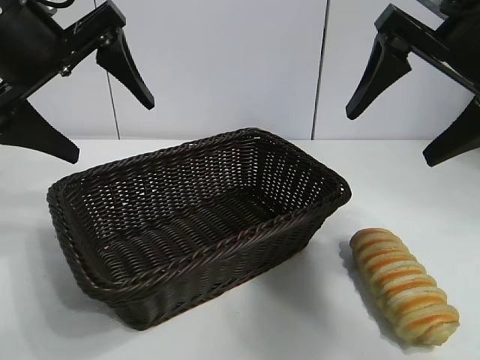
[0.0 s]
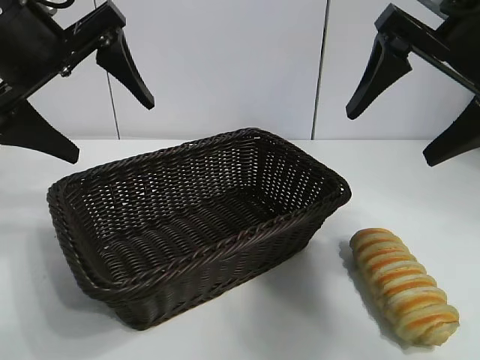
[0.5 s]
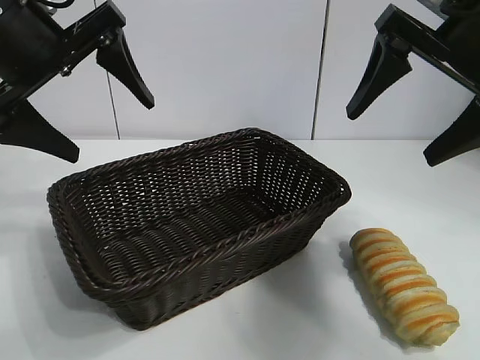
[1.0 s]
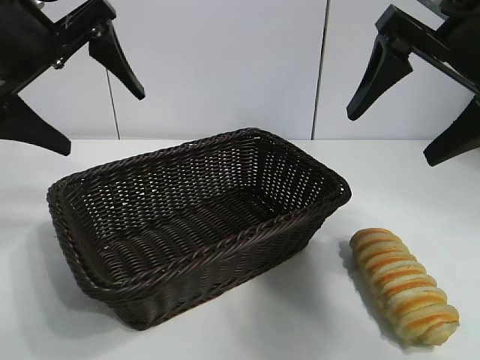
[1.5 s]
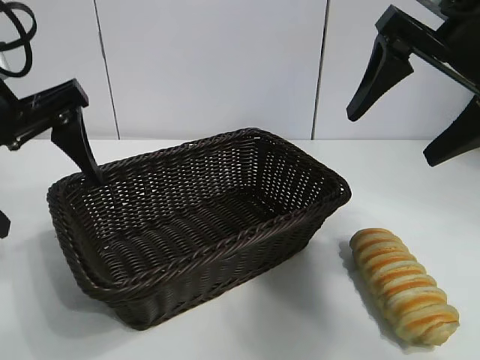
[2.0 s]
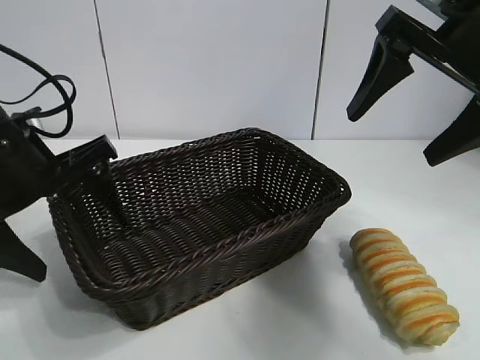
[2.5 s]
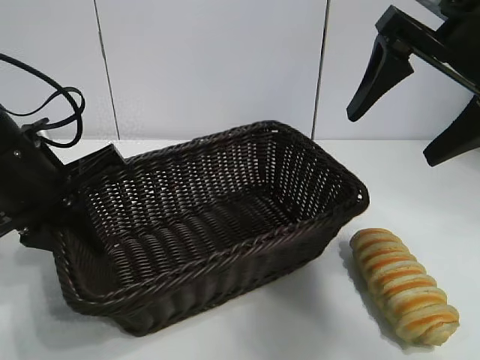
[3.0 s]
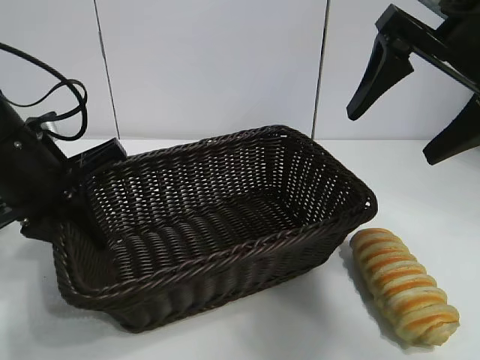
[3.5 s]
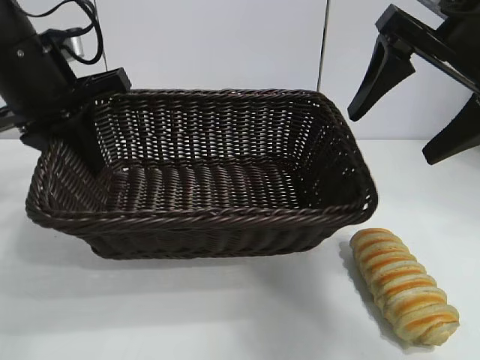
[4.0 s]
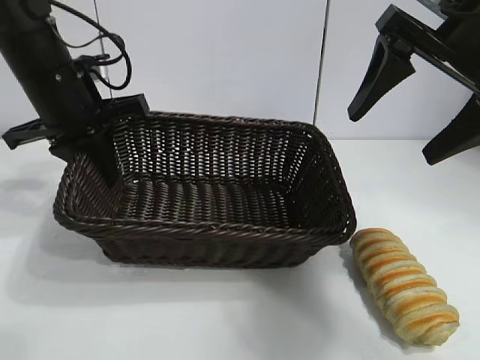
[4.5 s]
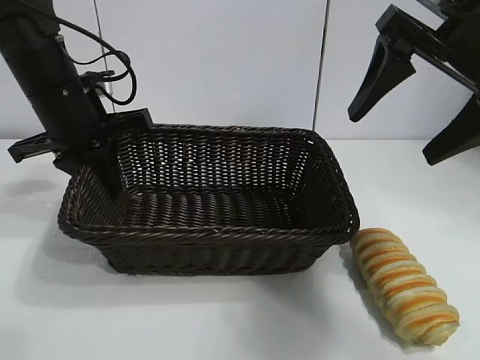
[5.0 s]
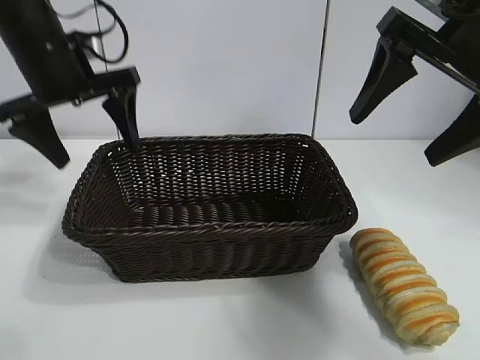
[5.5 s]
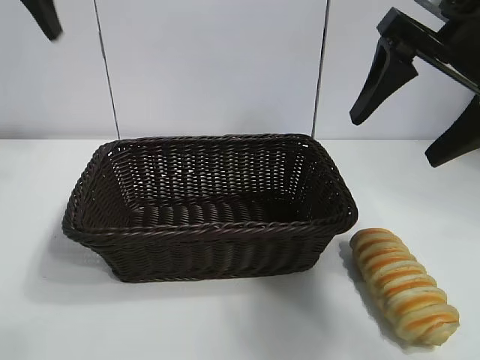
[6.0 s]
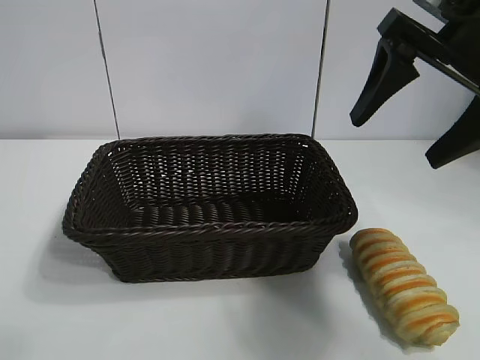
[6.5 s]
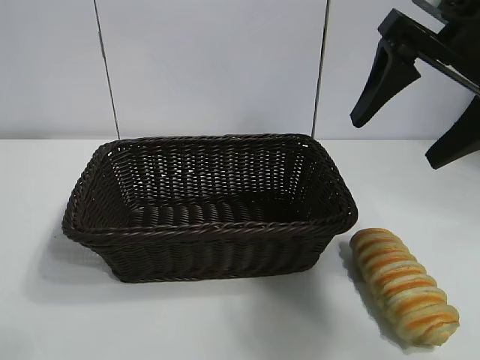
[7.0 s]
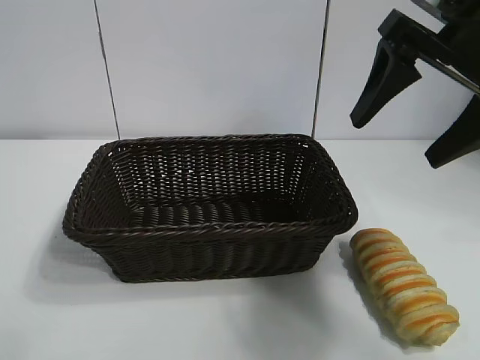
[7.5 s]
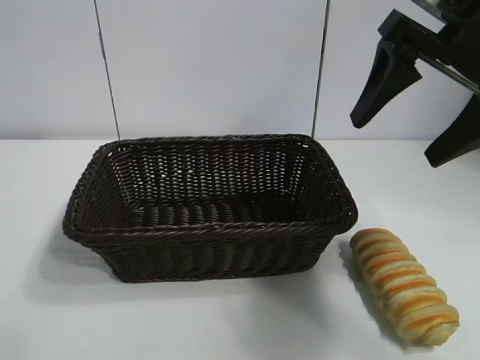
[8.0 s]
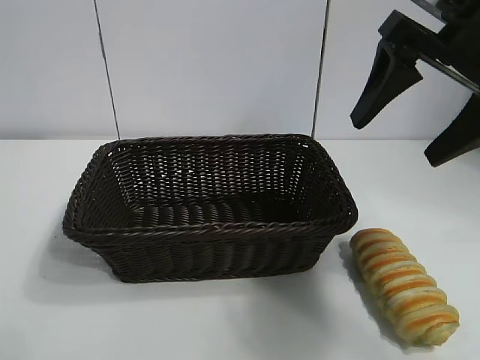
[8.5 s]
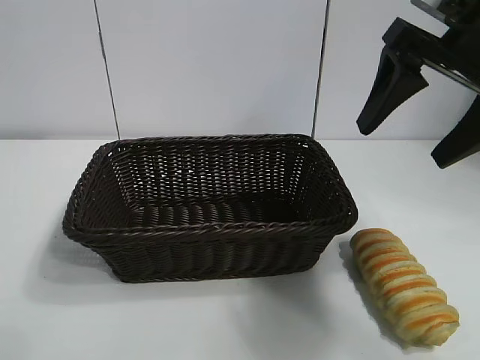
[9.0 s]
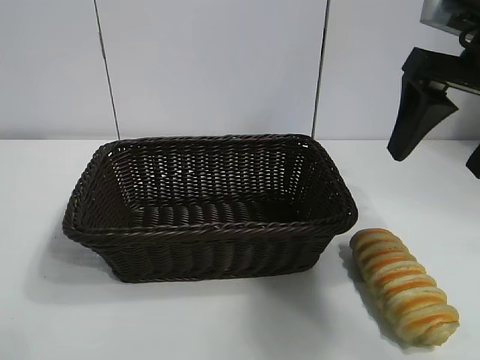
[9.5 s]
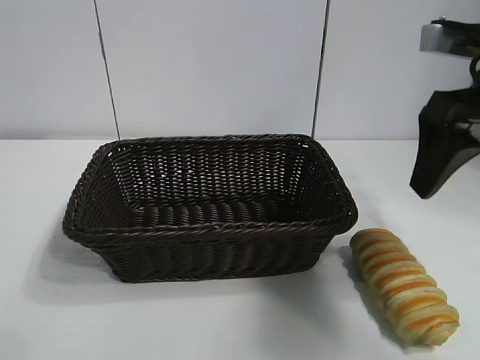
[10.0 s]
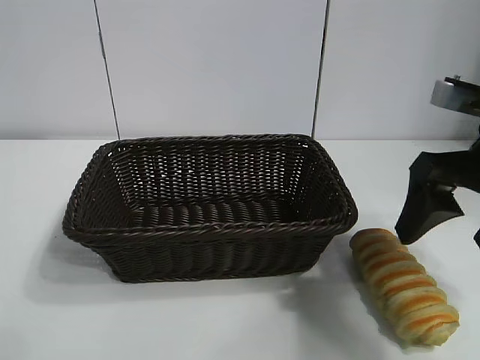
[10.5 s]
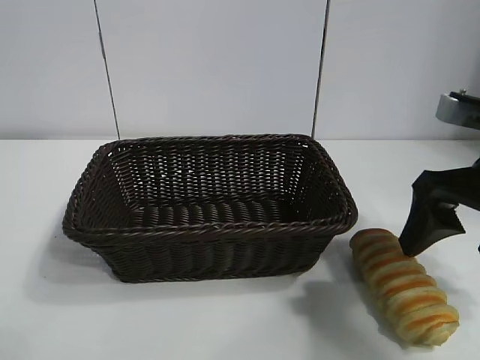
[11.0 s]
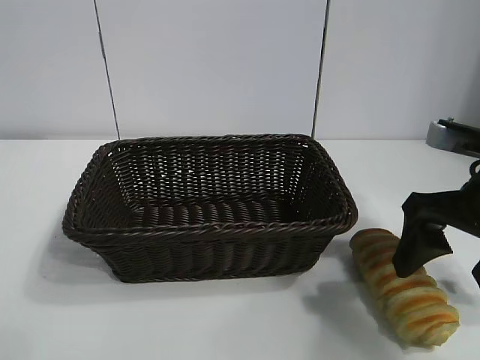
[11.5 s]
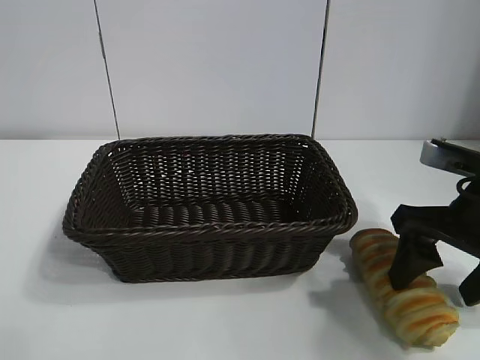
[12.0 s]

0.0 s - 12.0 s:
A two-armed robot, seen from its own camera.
Task of the whole recording: pick up the long bread and put it into the basket.
Step, 1.5 s - 3.0 s: Grasp the basket with the left gripper.
Step, 3.5 s - 5.0 s: Place the basket in the center of the table with the left gripper.

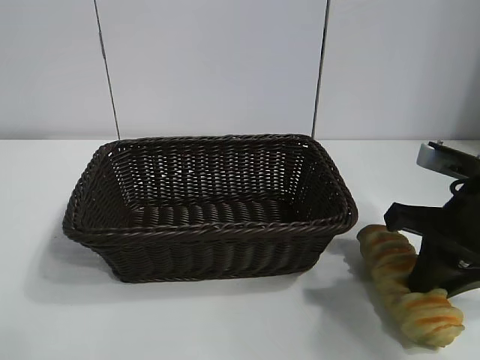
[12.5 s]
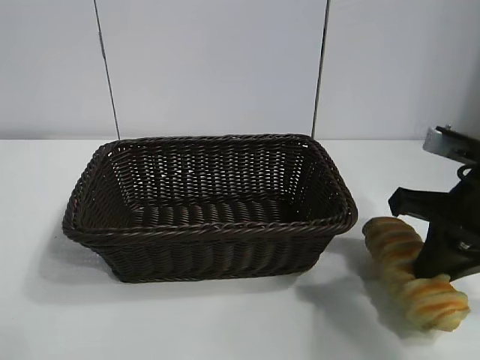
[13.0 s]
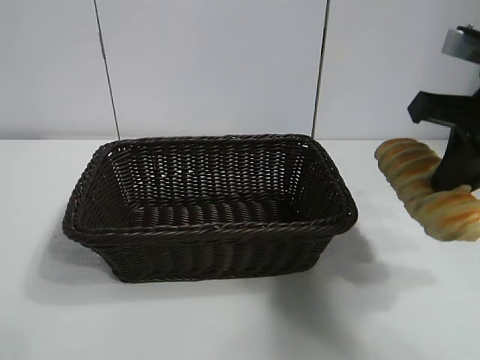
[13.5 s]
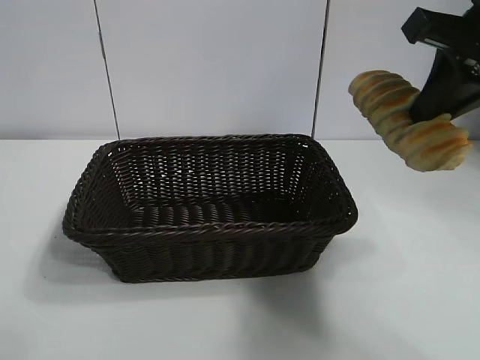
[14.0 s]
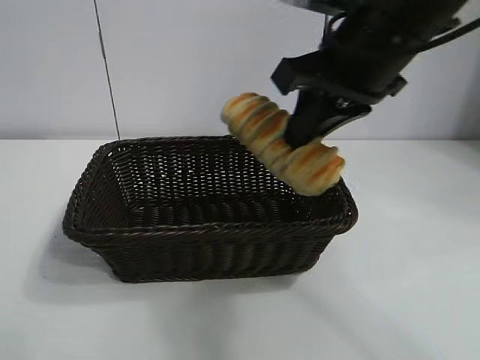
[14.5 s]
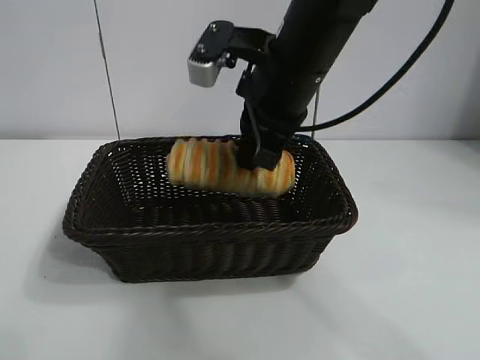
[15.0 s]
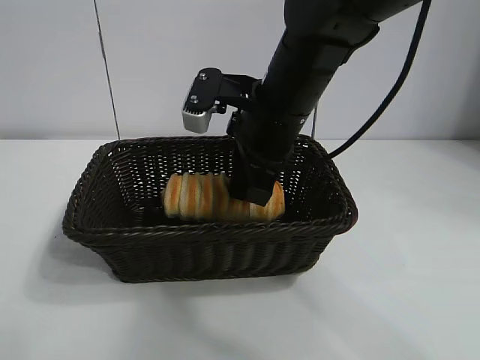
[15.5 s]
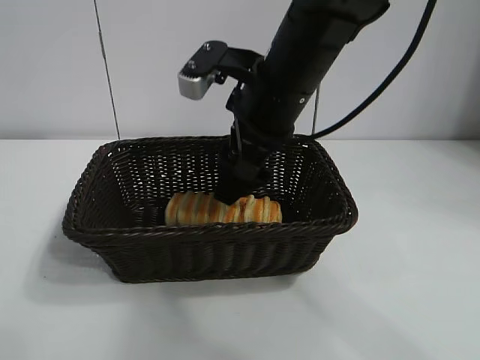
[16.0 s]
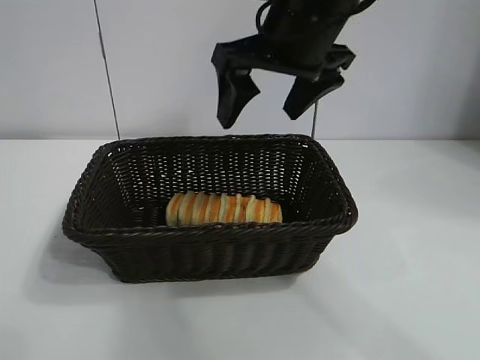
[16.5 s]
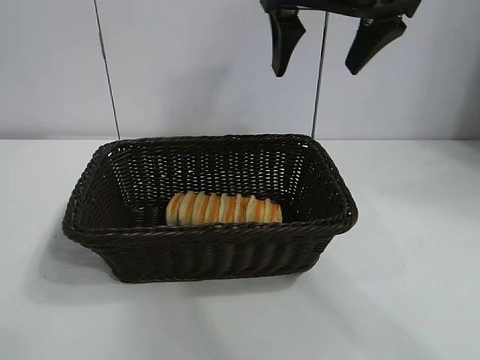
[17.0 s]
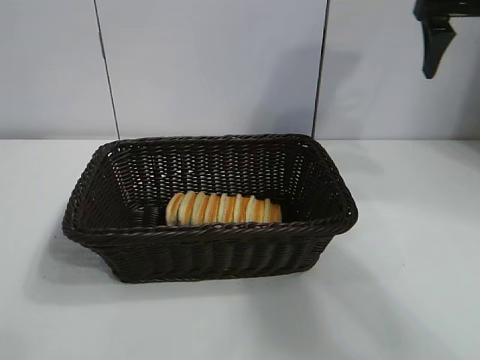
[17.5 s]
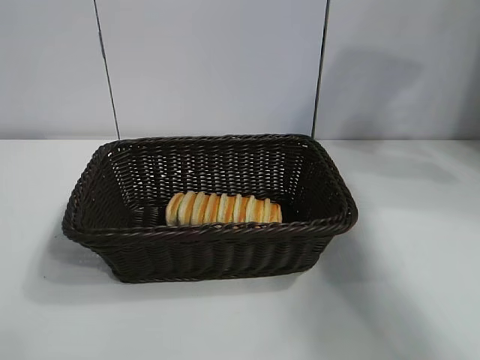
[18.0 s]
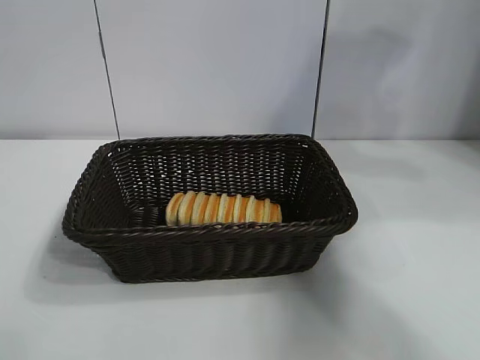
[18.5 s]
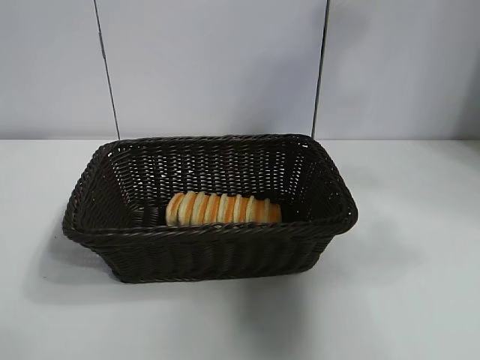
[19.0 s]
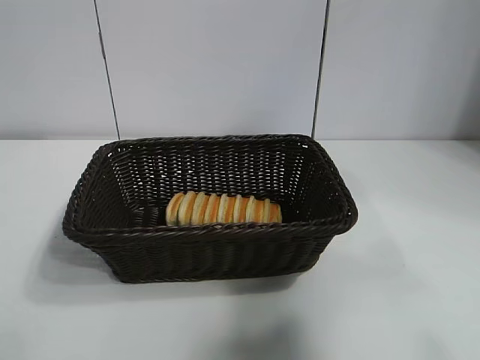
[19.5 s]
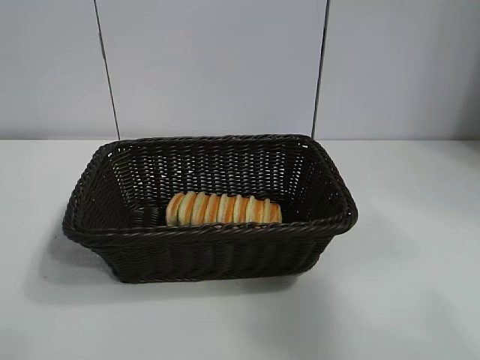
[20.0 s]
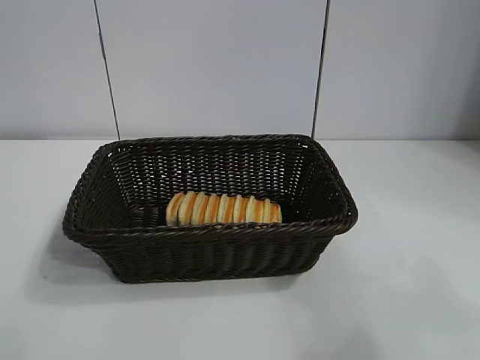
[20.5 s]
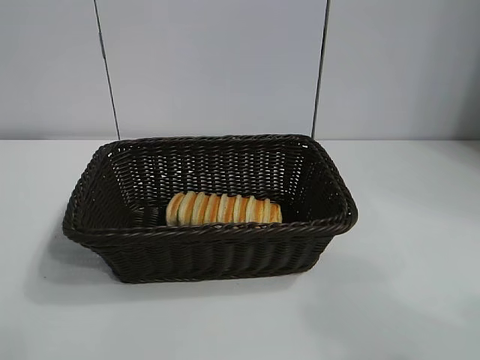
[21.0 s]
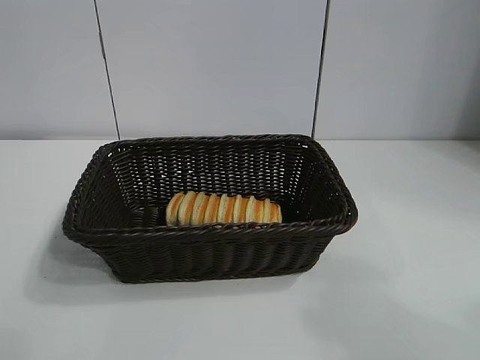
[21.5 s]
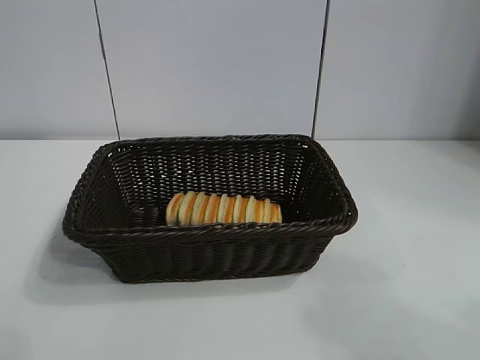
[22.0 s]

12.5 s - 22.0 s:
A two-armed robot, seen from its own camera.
Task of the whole recording: pick up the long bread and put it into the basket.
Step, 13.0 s - 16.0 s: Place the long bread in the basket with right gripper.
